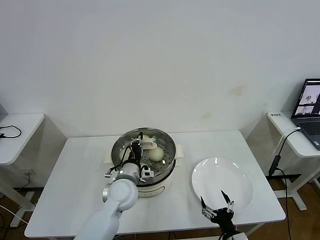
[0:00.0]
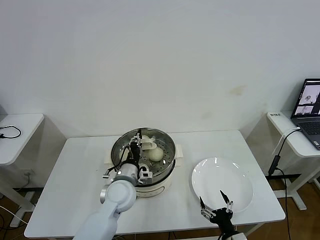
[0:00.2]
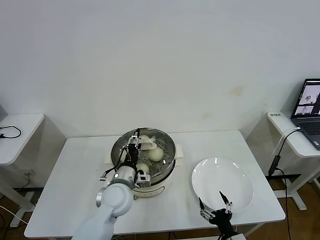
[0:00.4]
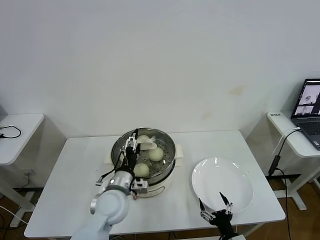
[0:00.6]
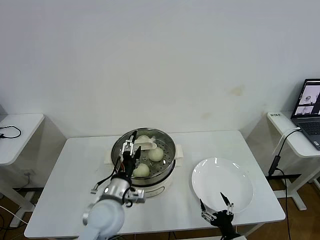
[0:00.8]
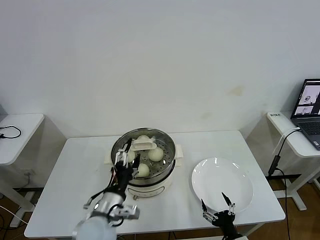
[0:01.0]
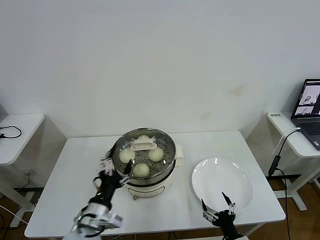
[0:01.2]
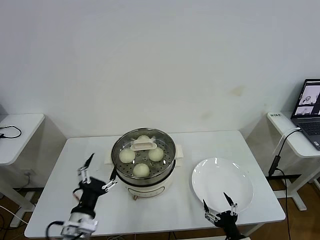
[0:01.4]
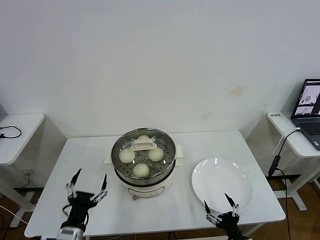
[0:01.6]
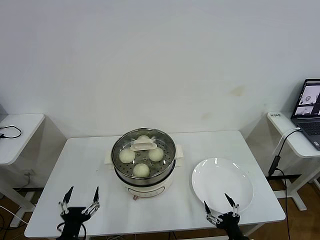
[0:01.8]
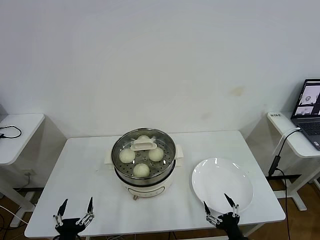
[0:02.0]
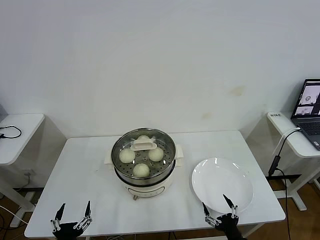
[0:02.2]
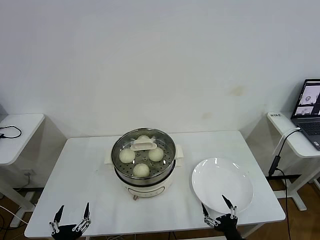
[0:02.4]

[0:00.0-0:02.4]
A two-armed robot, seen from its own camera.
Task of the whole recording: take steamed baozi put them in steamer then cover it.
0:00.0 to 0:01.2: The left gripper goes about 15 cm backward and to the left, and opens its fingers.
0:01.2 to 0:02.4: The left gripper goes some 20 cm backward, downward and to the left.

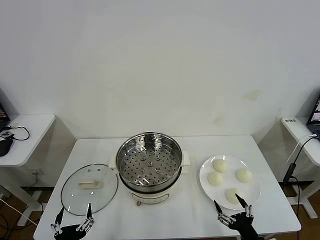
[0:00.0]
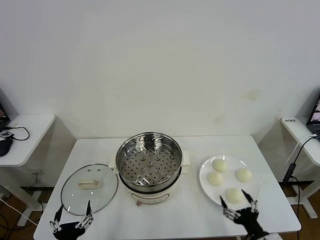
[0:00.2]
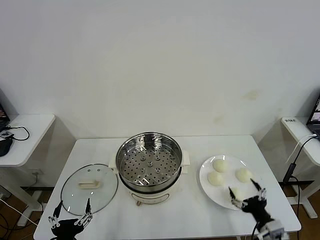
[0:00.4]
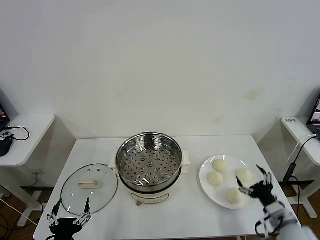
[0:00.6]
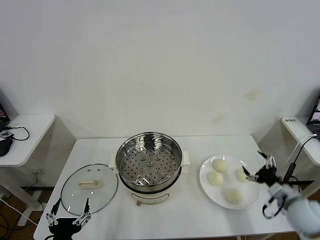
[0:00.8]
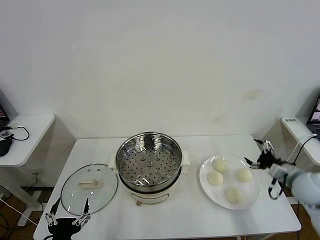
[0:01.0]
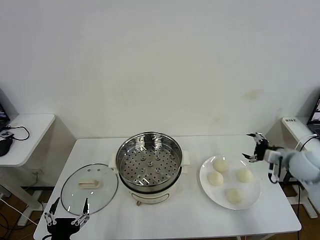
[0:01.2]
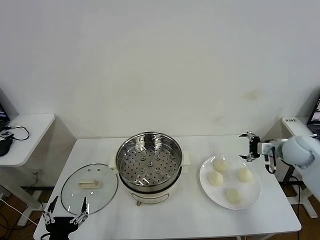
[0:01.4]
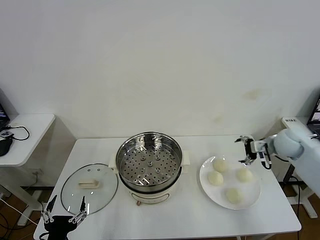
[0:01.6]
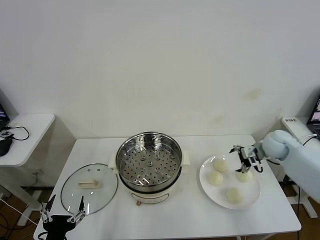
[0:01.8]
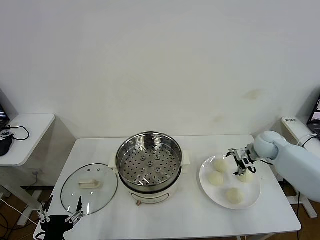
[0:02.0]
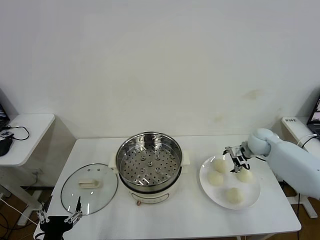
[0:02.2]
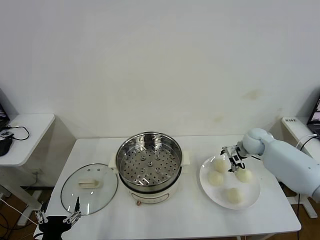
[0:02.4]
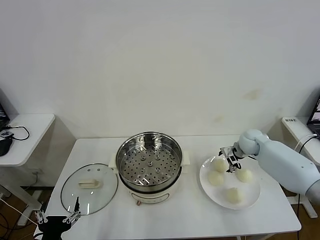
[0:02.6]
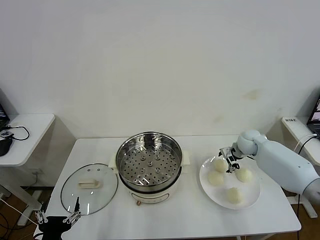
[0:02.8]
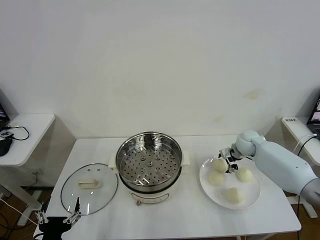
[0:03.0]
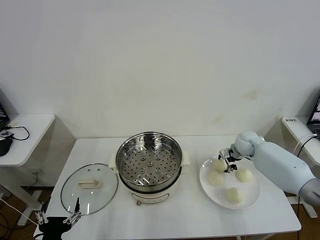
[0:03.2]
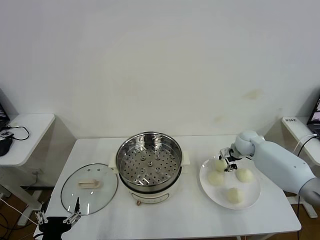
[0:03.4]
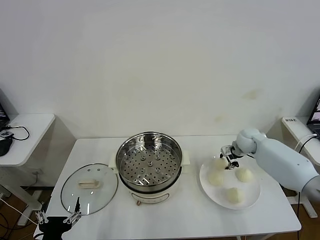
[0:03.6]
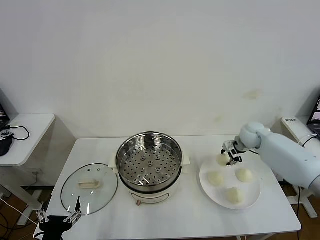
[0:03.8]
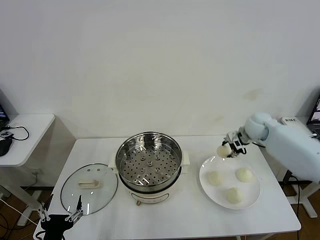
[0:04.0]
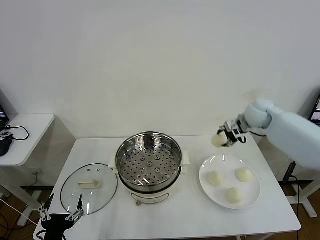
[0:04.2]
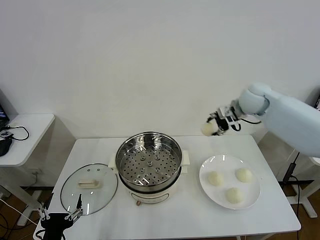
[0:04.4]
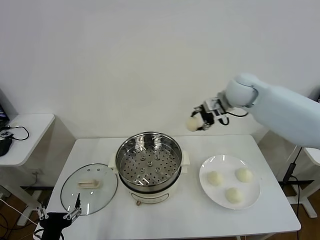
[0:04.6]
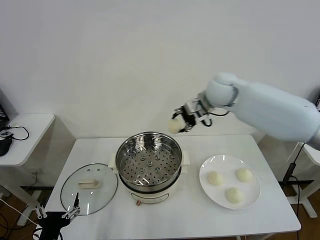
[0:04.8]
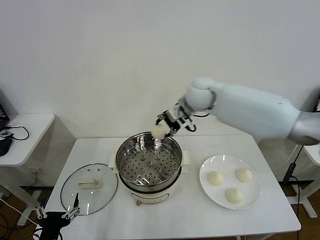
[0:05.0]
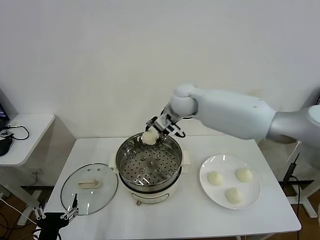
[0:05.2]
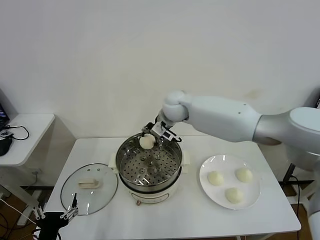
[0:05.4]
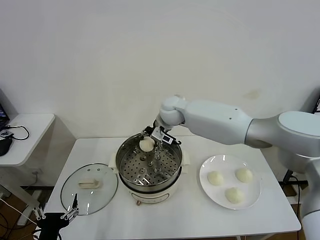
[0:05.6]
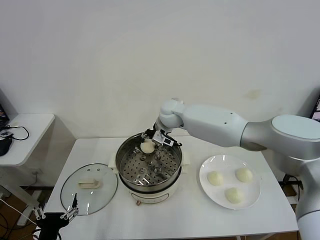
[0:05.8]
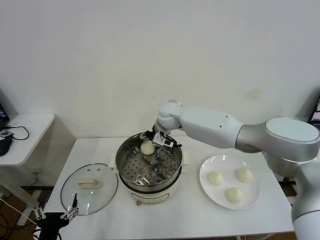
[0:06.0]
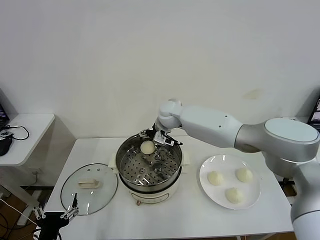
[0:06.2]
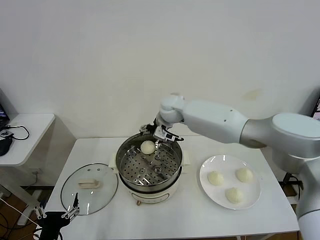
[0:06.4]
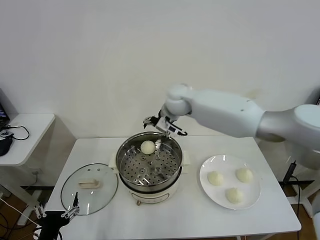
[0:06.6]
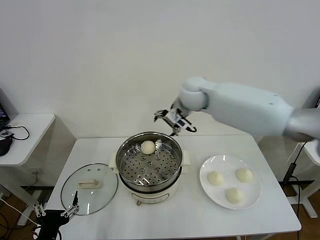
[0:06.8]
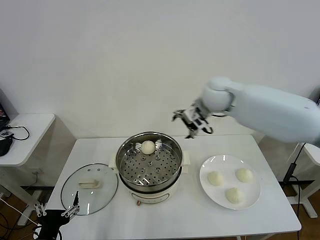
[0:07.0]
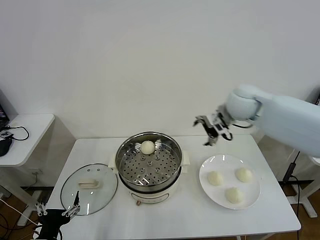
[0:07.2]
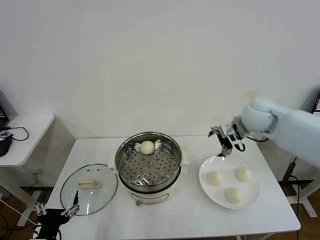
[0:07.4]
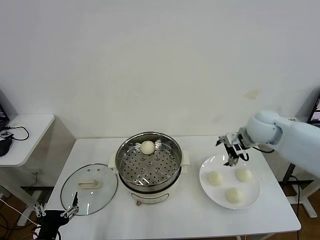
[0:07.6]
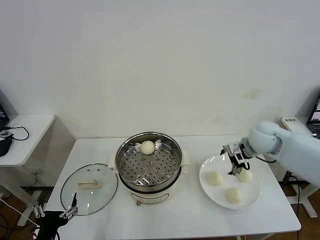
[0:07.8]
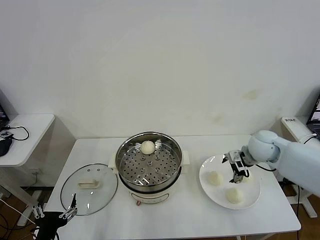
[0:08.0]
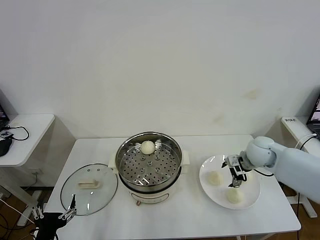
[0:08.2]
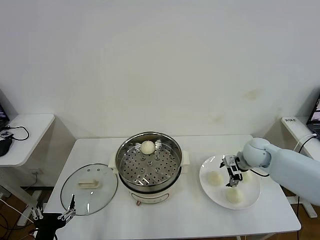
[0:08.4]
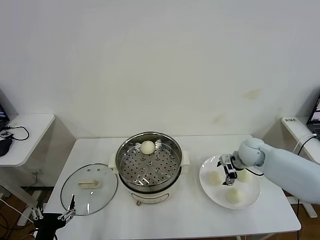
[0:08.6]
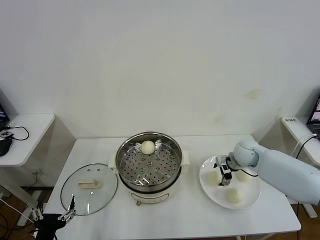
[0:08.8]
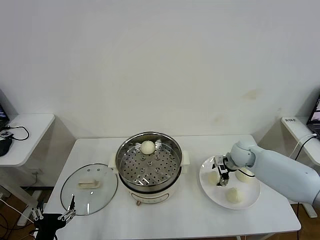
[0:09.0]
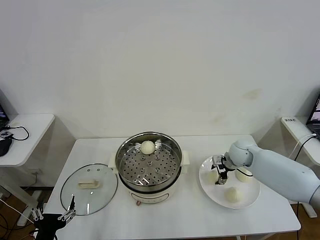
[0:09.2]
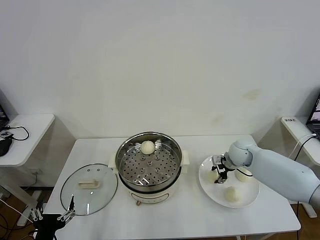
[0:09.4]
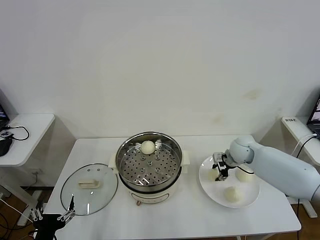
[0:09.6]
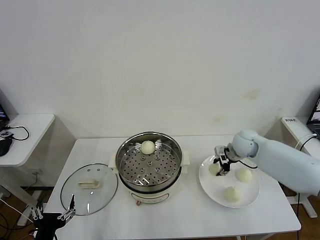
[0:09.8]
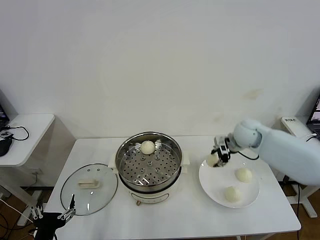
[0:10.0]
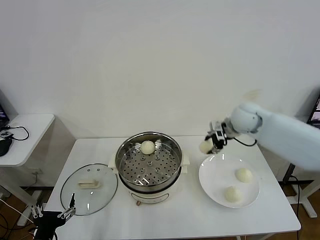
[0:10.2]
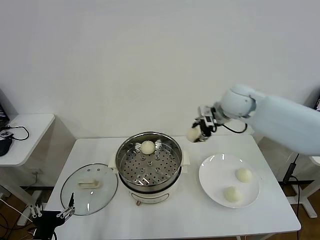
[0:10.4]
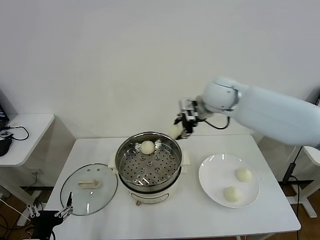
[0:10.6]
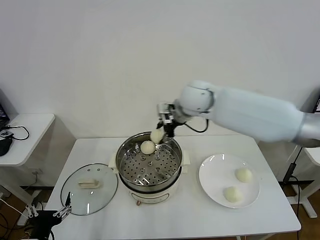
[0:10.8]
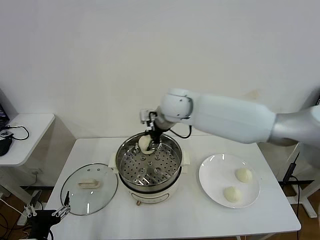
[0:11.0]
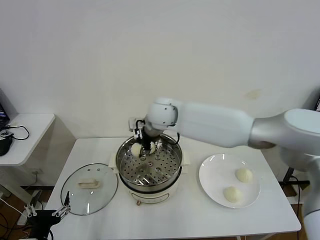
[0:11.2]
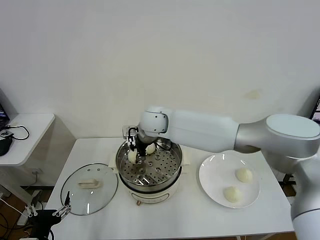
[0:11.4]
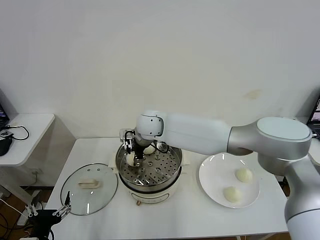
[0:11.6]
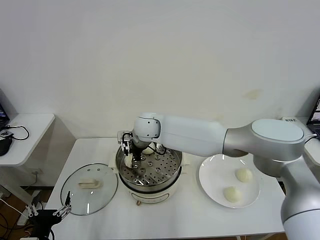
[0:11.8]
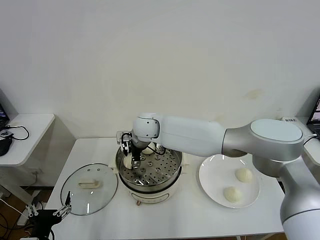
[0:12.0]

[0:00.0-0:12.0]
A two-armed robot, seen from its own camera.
Task of the whole recording: take steamed baozi put them in steamer then cover it.
Step, 0:00.0 to 0:03.2: Grasp the baozi in the plate with right gripper.
Step, 0:03.4 to 0:06.0: Place the baozi on the steamer with right gripper.
Step, 0:06.2 to 0:09.2: Grasp the baozi in the plate with right gripper.
0:01.6 to 0:03.0: The right gripper travels downward, to the left and forward by roughly 15 cm.
0:03.0 to 0:04.4: The right gripper moves upward, some 20 cm, and closes.
0:04.4 to 0:06.0: The right gripper goes approximately 25 cm to the left, and opens.
0:06.0 to 0:07.6: The right gripper is displaced to the right by some 30 cm, and opens up.
0:07.6 to 0:09.0: The right gripper shifts roughly 15 cm downward.
0:09.0 to 0:10.4: The right gripper heads upward and to the left, covering approximately 25 cm, and closes.
0:10.4 to 0:12.0: The right gripper shifts approximately 25 cm to the left, and opens its fingers.

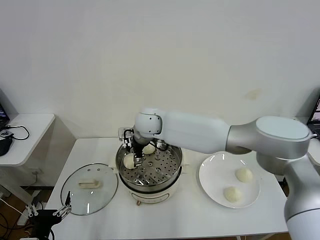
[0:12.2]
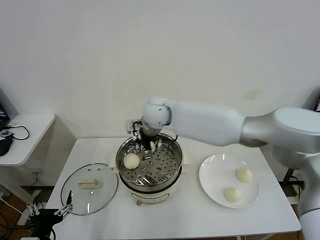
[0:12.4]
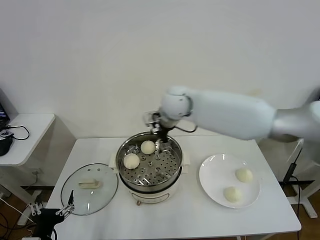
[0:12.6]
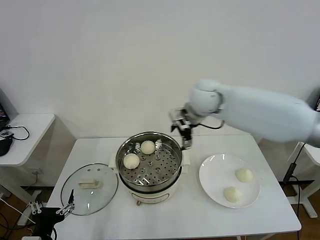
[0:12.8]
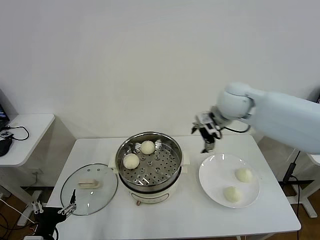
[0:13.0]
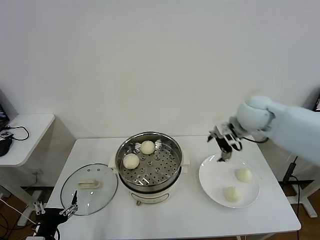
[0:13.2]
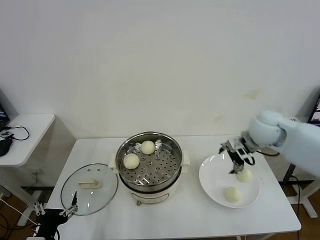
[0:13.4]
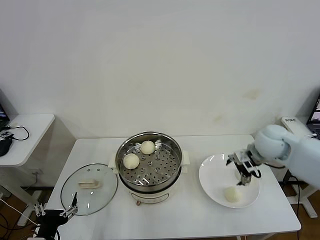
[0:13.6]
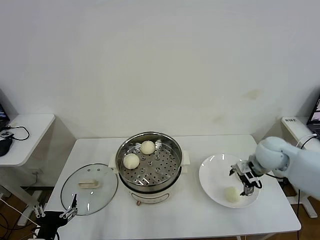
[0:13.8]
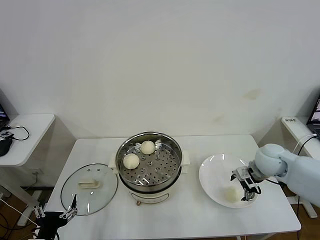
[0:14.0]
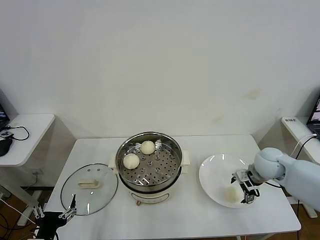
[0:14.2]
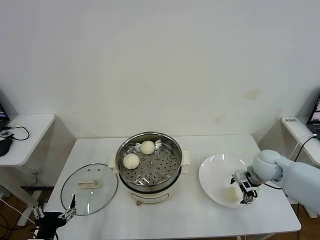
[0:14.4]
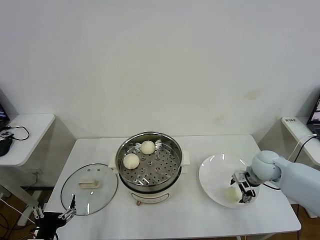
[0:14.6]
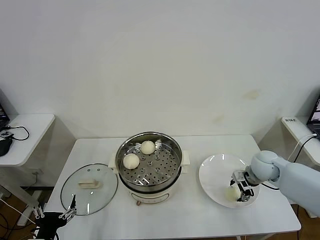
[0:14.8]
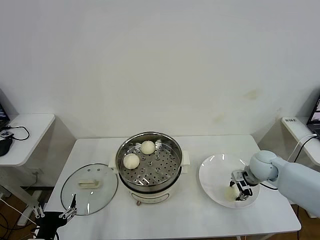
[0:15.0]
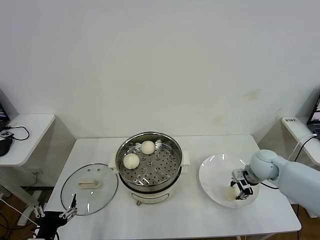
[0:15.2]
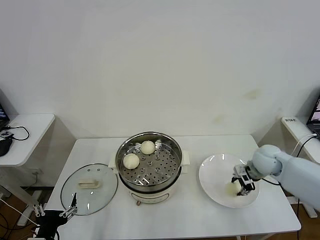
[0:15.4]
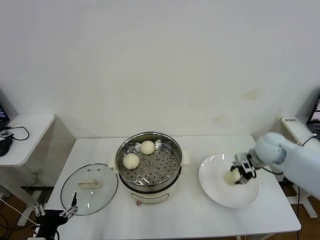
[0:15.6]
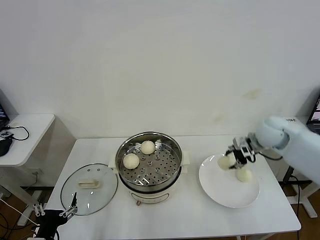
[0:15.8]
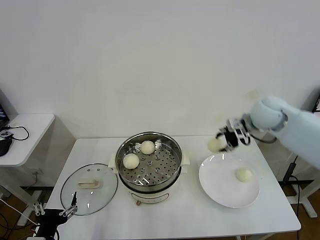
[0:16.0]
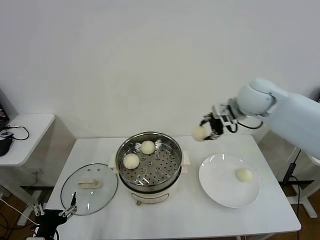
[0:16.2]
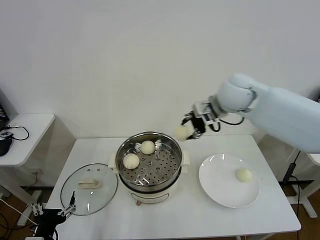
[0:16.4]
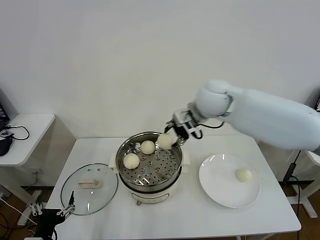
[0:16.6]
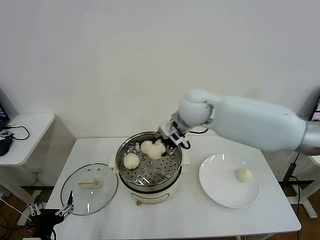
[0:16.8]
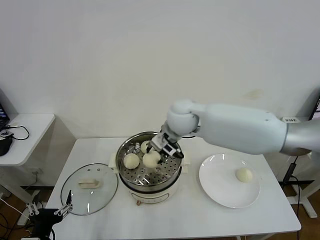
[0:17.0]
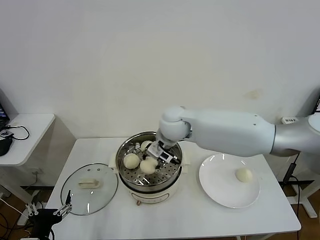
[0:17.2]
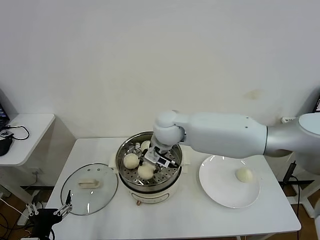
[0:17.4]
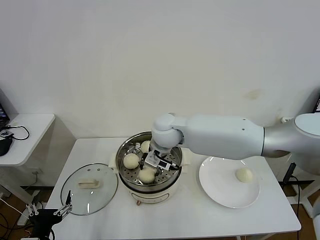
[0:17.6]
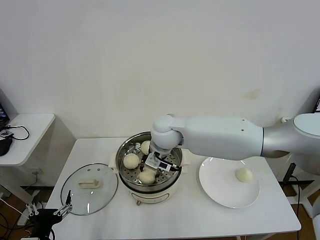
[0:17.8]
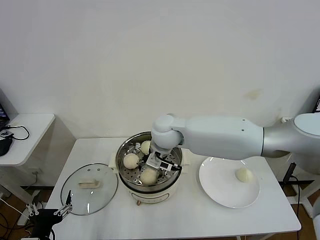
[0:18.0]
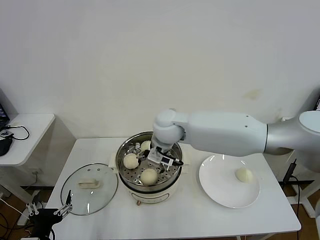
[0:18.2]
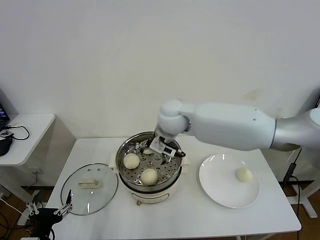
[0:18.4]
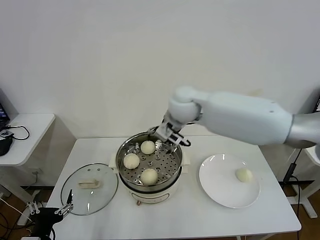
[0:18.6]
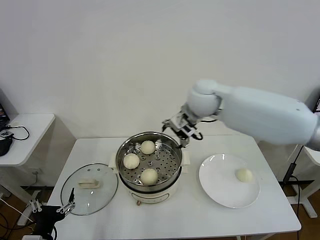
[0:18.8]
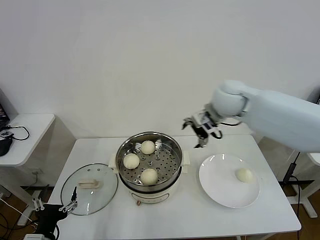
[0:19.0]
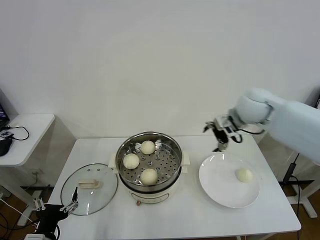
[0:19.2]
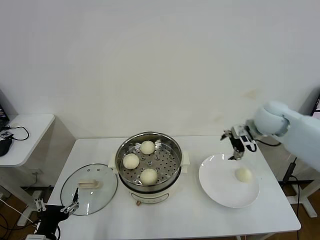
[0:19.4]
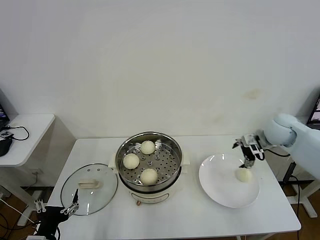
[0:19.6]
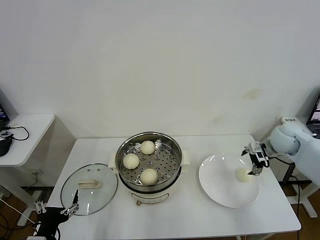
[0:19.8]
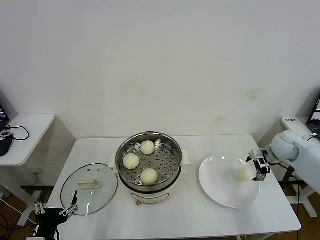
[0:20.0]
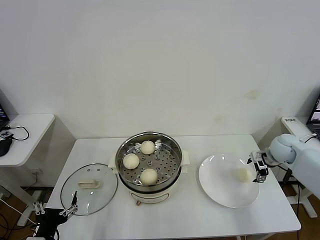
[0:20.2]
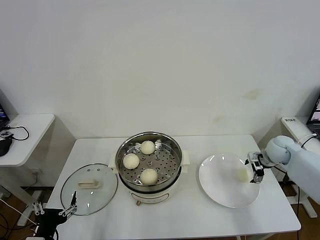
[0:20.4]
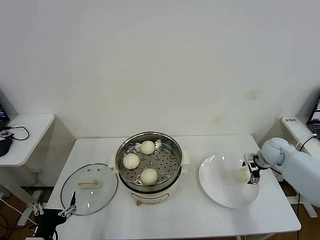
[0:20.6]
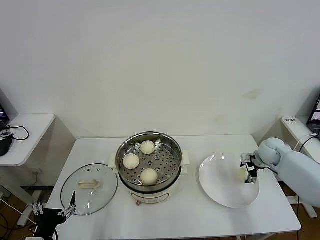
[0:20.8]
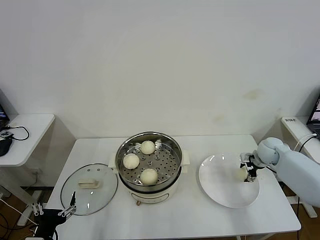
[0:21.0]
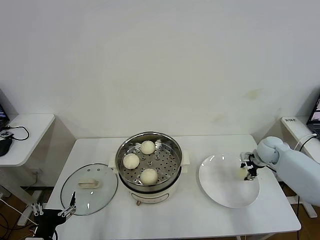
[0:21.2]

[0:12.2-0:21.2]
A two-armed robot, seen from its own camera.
Task of the whole recording: take steamed baozi put them in steamer then cover it.
Step, 0:12.2 to 0:14.8: Grasp the baozi in the plate with right gripper.
Step, 0:15.2 to 0:18.0: Place the baozi on the steamer with right gripper.
Step, 0:18.2 to 0:21.0: Grasp the baozi in the plate with right gripper.
0:12.2 to 0:13.8: The right gripper moves to the right, approximately 40 cm.
0:13.8 to 0:15.2: The right gripper heads downward, covering some 5 cm, and closes its fingers.
0:15.2 to 0:16.6: The right gripper travels upward and to the left by about 30 cm.
0:16.6 to 0:18.2: The right gripper shifts some 15 cm to the left and downward, and opens its fingers.
0:18.2 to 0:19.8: The right gripper travels to the right by some 40 cm.
0:19.8 to 0:21.2: The right gripper heads downward, covering roughly 10 cm, and closes.
